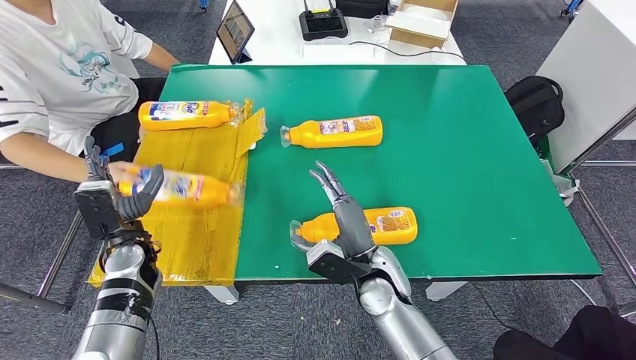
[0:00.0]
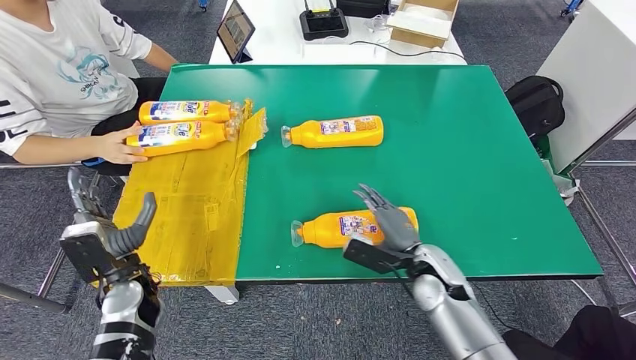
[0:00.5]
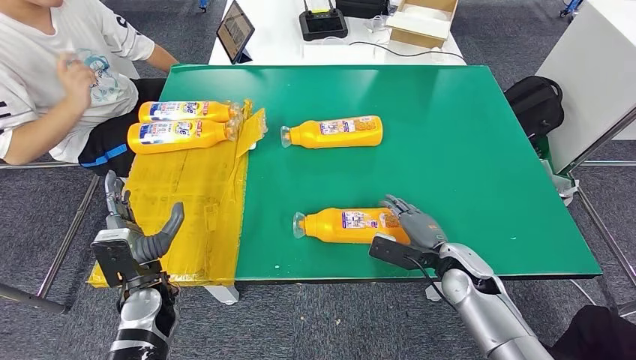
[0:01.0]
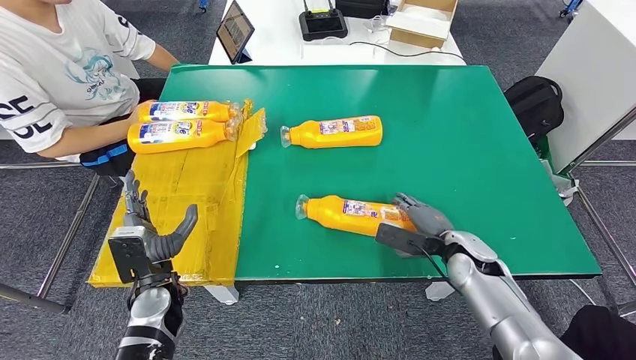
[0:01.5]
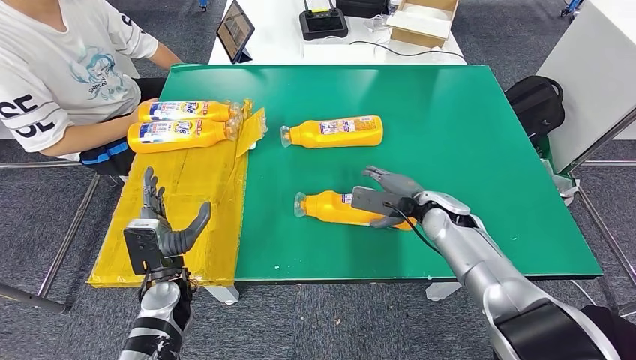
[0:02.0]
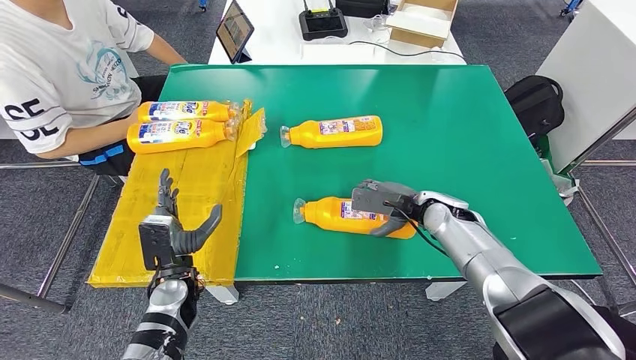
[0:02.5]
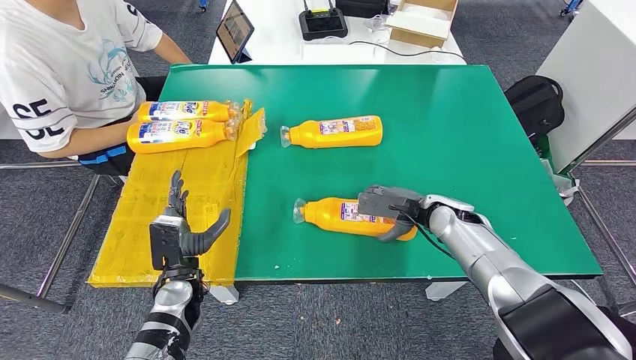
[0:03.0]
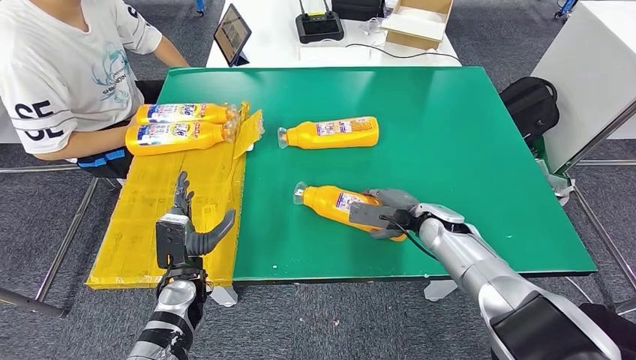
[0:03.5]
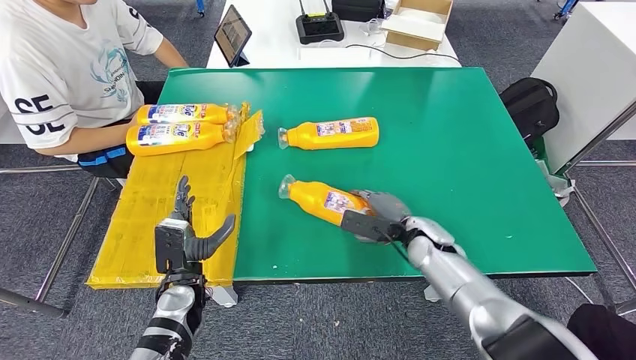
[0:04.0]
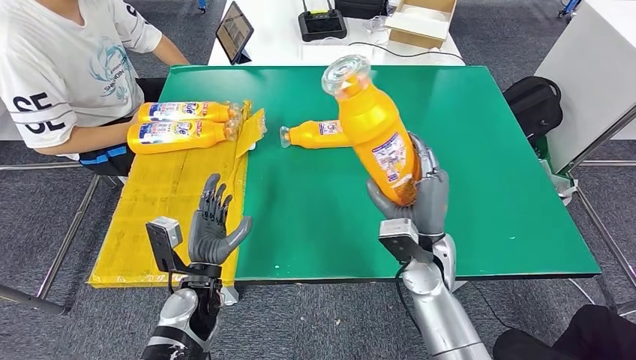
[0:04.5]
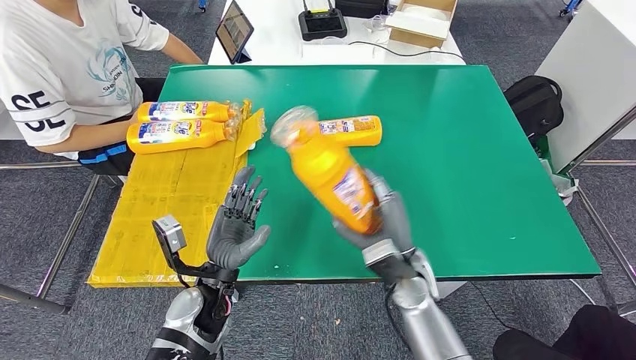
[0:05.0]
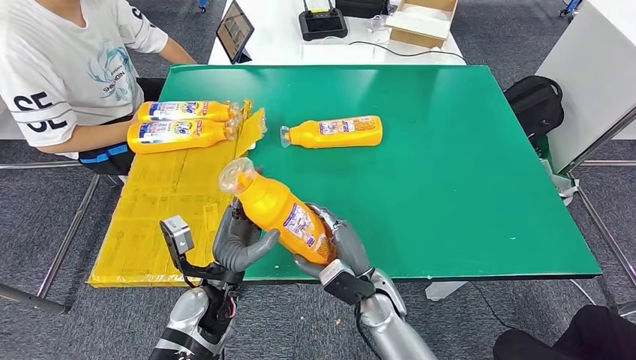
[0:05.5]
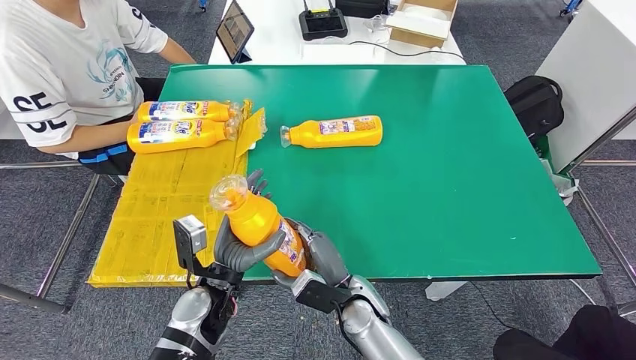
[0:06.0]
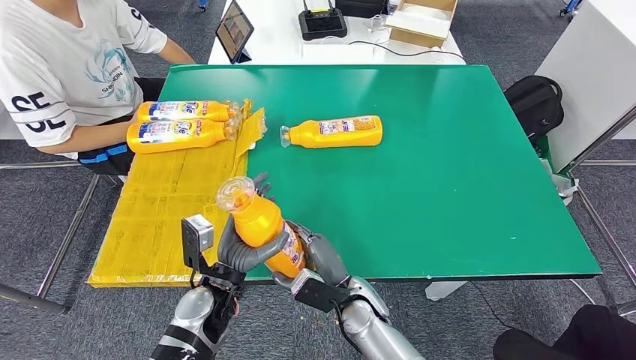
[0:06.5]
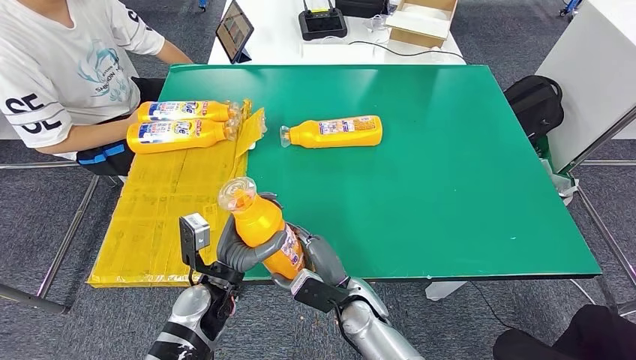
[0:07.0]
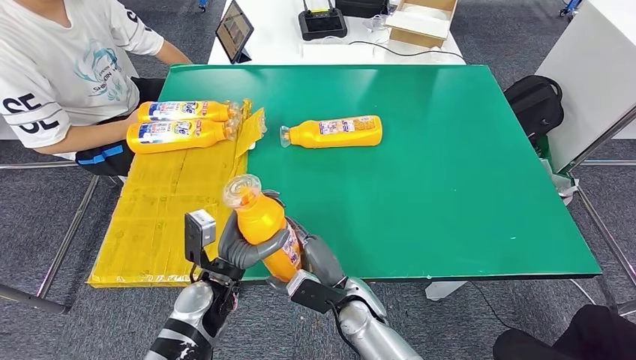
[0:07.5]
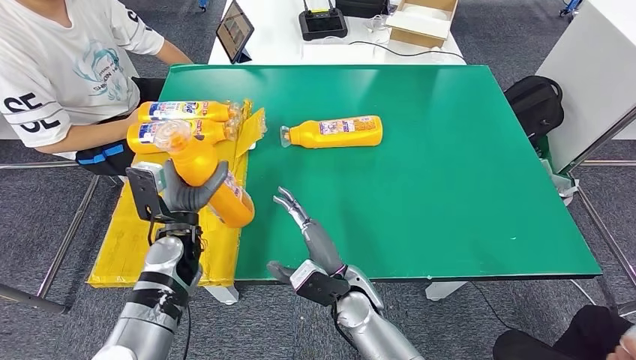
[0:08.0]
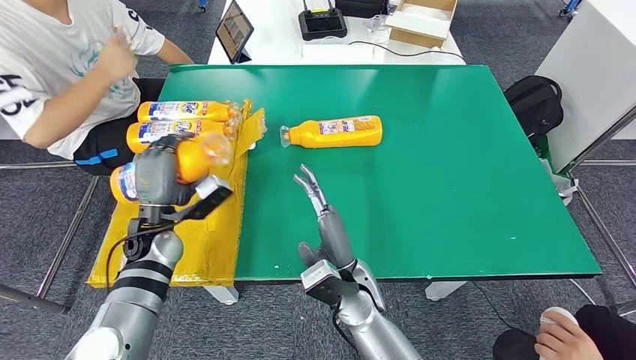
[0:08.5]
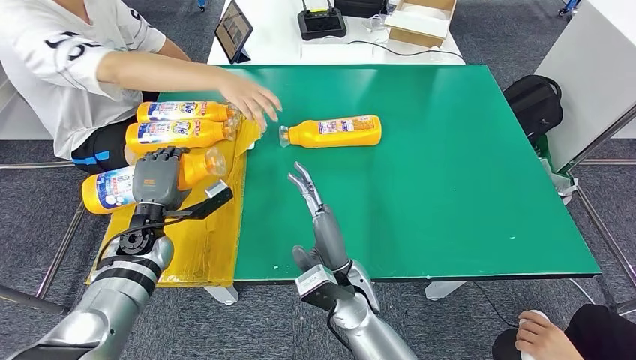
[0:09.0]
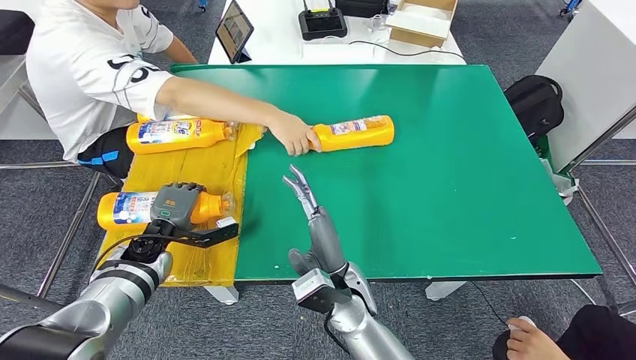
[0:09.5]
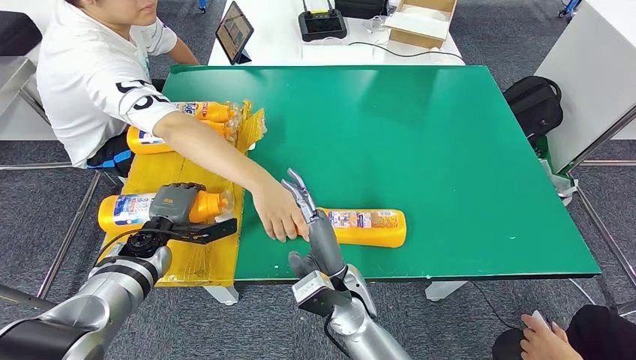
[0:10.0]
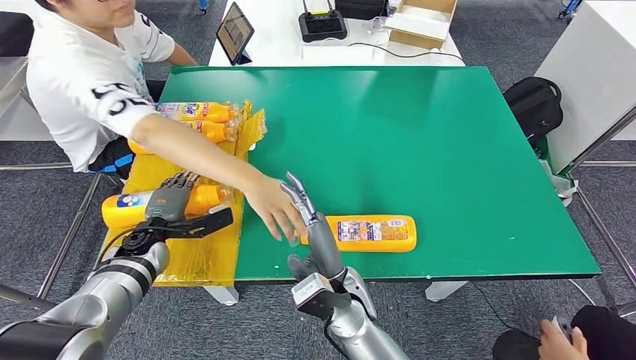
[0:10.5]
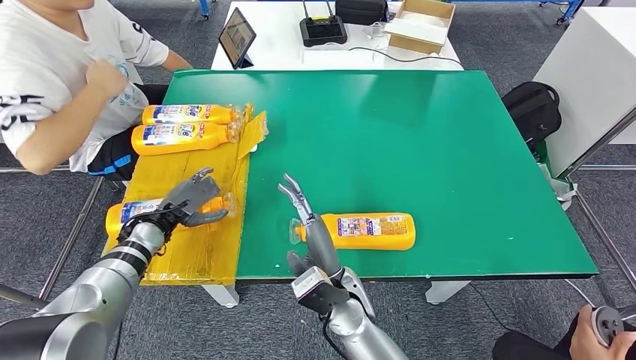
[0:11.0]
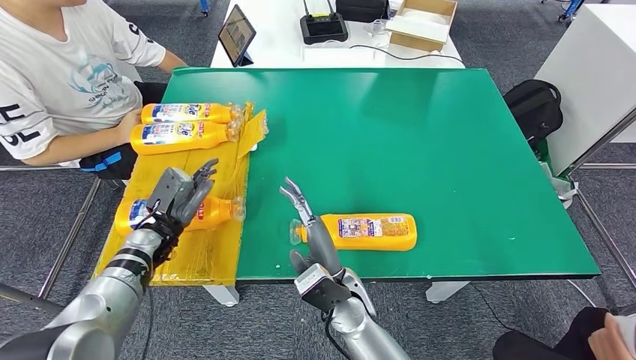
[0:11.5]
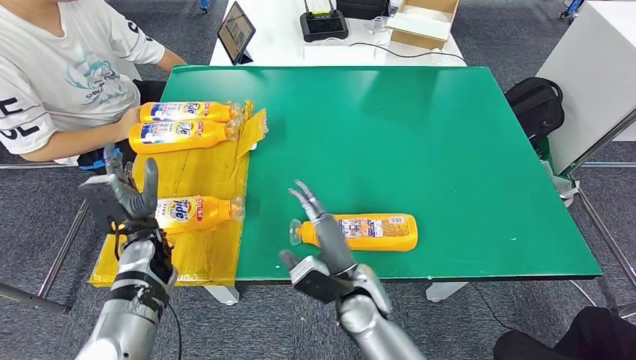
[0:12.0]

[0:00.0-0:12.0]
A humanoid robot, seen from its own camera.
Step, 0:00.0 to 0:06.0: Pick up the fast-moving consumer goods bottle from the table.
Step, 0:06.5 to 0:09.5: Flip the fast-moving consumer goods bottle to the front side.
0:06.0 to 0:08.0: The left hand is displaced forward and to the left by roughly 10 cm.

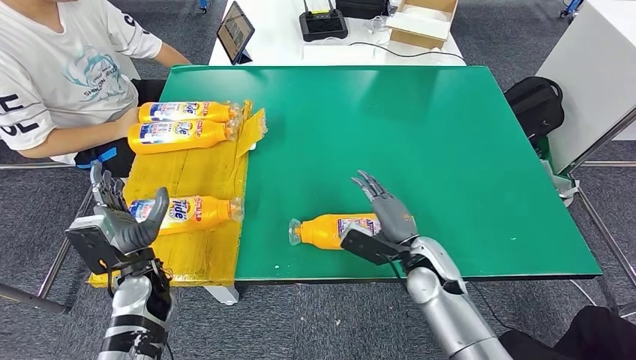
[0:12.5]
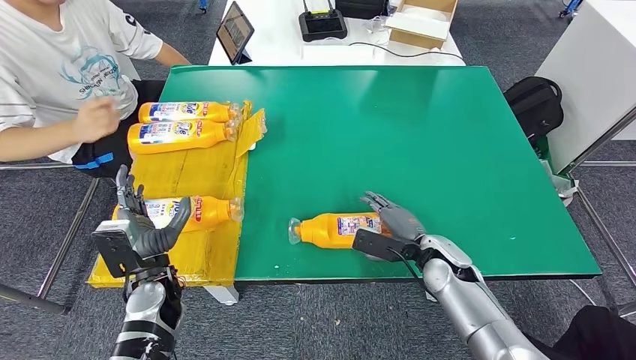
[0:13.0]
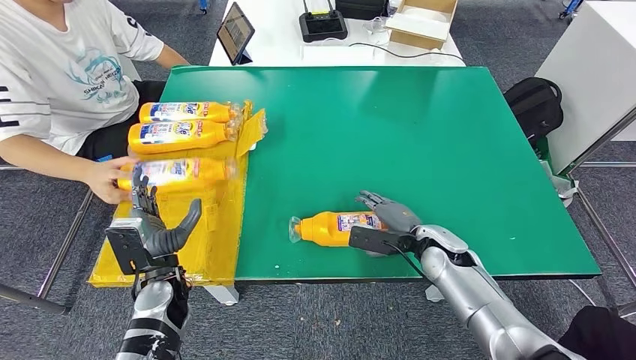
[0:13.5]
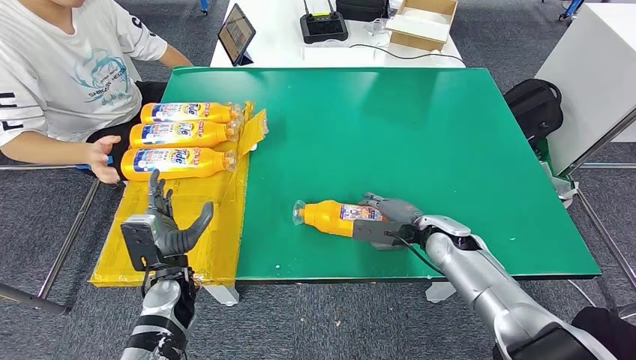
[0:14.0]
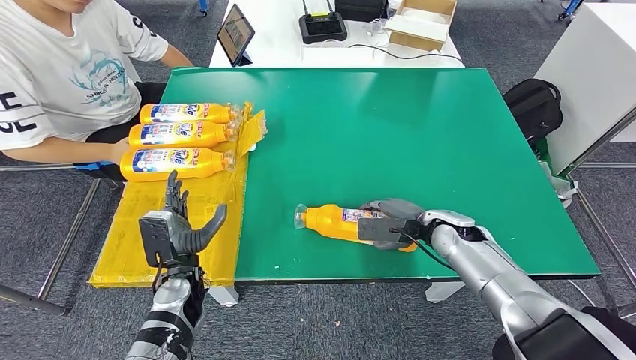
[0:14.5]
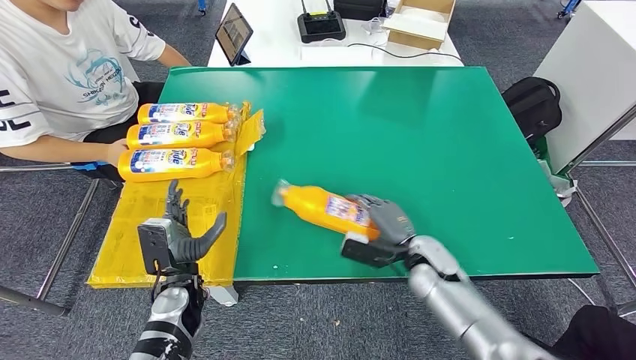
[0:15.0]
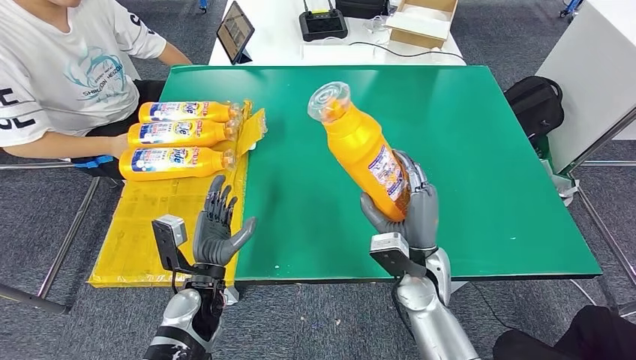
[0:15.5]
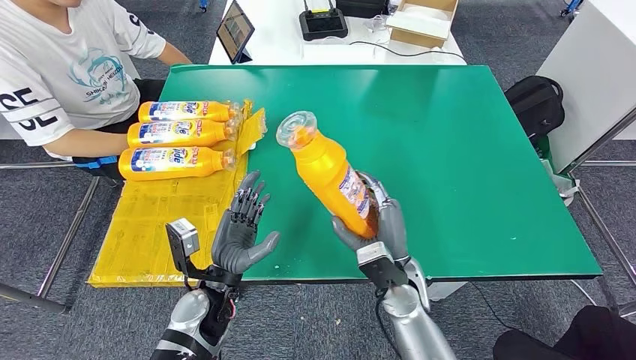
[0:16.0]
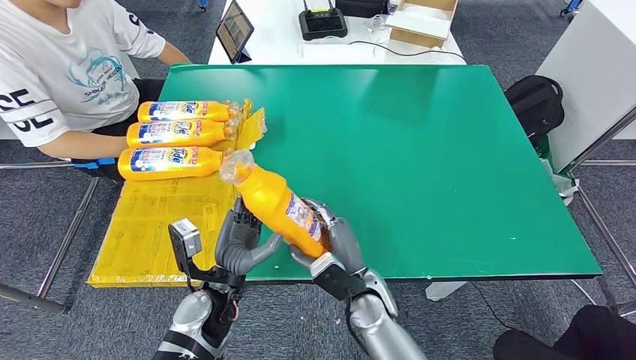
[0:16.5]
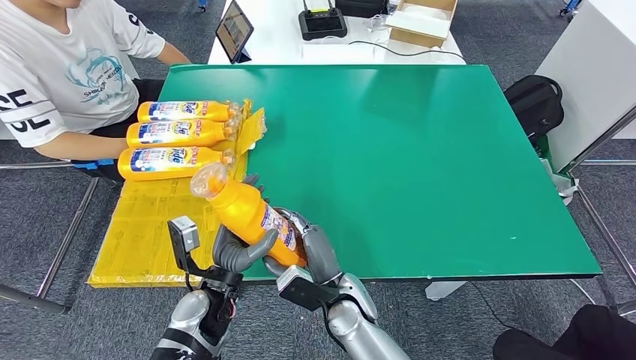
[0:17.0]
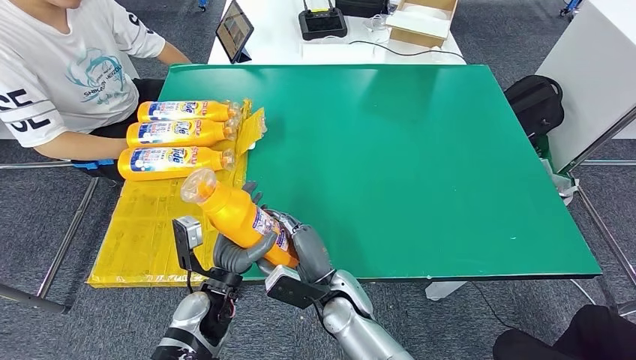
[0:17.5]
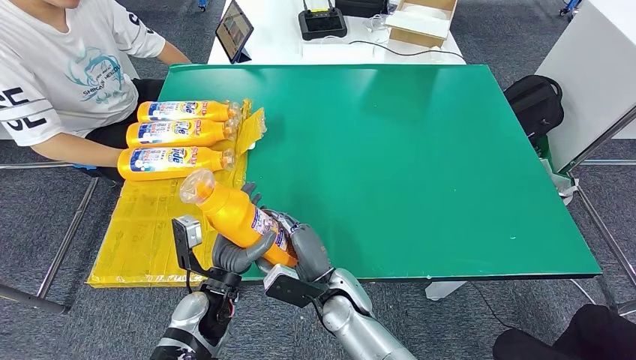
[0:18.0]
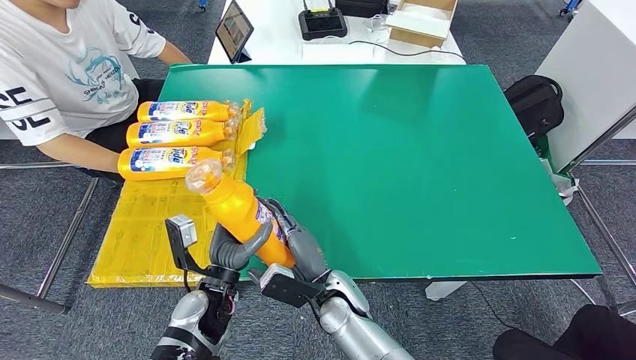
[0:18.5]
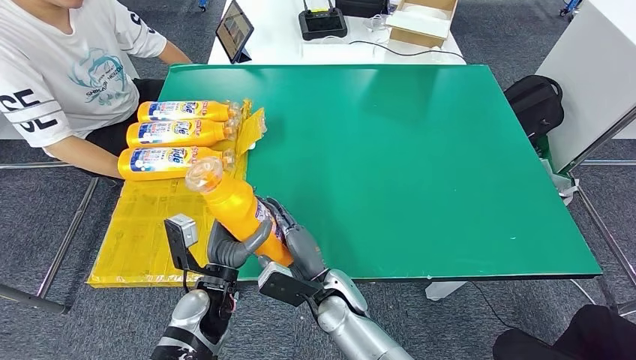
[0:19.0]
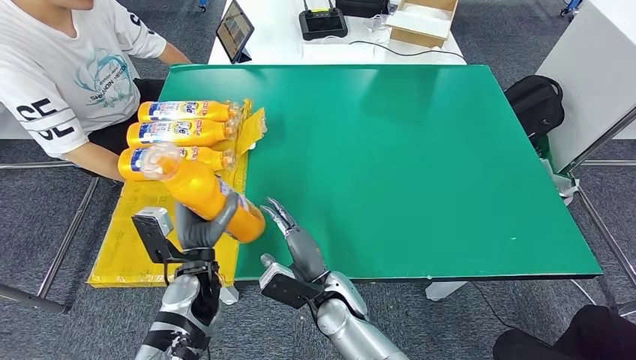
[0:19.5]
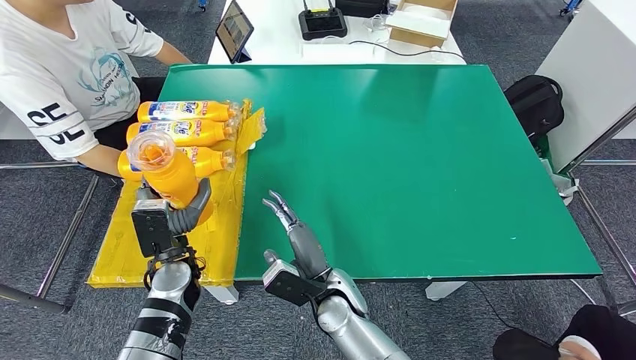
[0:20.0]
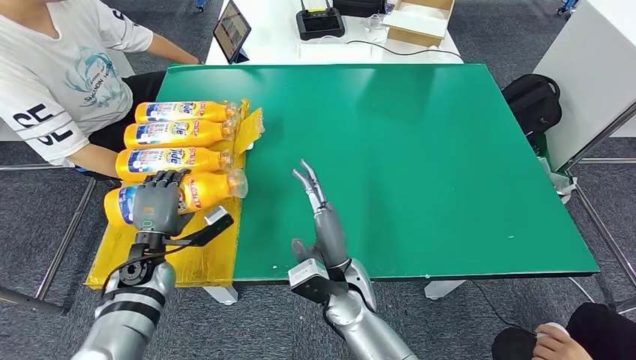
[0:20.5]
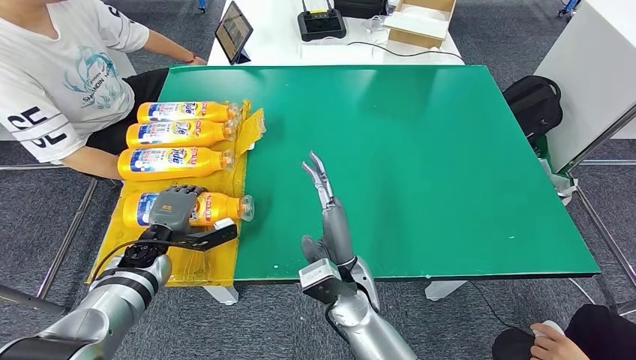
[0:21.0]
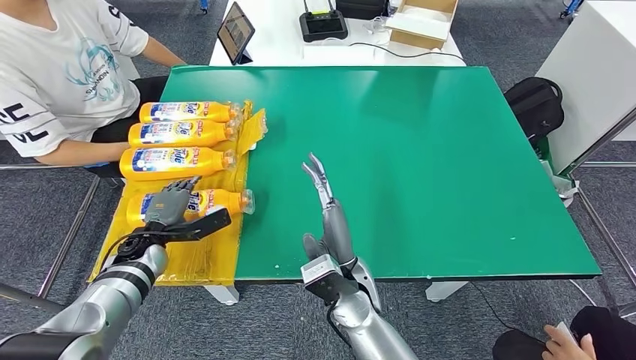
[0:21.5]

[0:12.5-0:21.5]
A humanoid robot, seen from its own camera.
Step, 0:12.5 to 0:16.5: Pick up the fast-moving consumer goods bottle from the table.
Step, 0:17.0 to 0:21.5: Flip the fast-moving consumer goods bottle to the front side.
